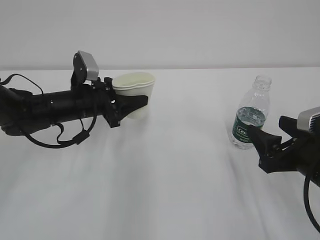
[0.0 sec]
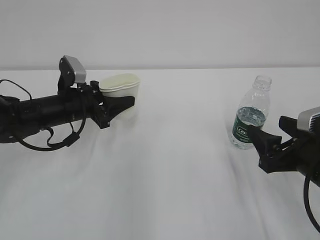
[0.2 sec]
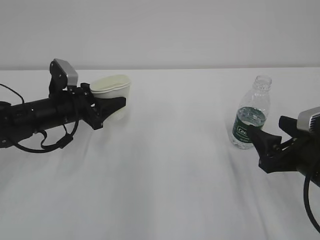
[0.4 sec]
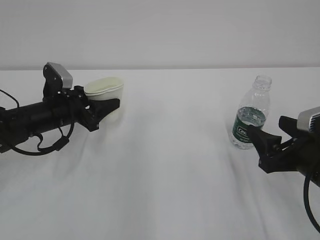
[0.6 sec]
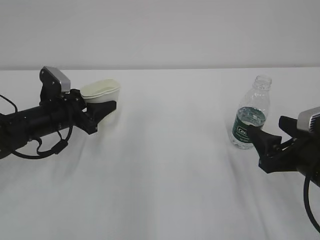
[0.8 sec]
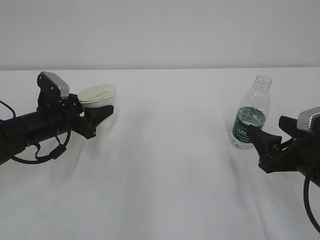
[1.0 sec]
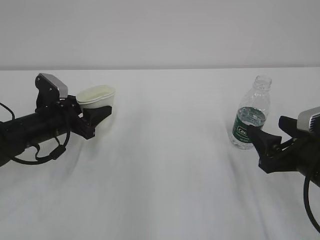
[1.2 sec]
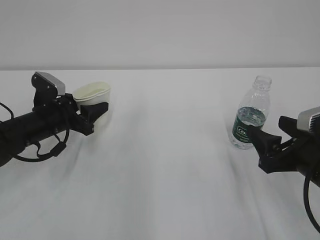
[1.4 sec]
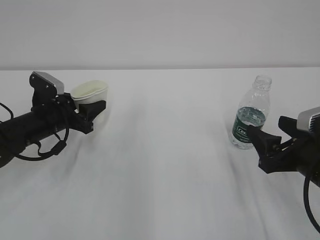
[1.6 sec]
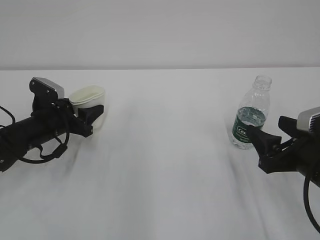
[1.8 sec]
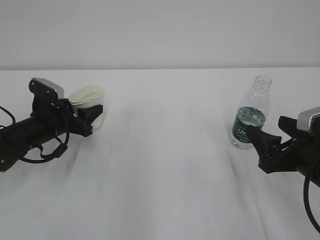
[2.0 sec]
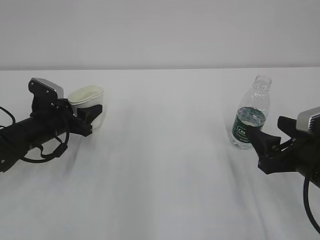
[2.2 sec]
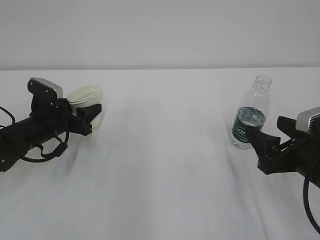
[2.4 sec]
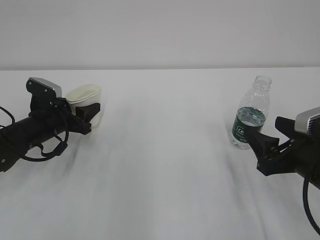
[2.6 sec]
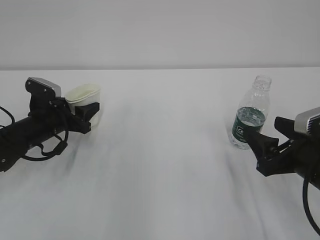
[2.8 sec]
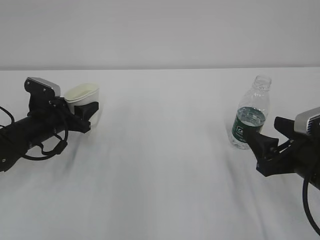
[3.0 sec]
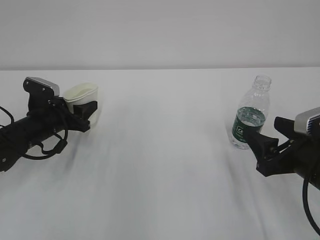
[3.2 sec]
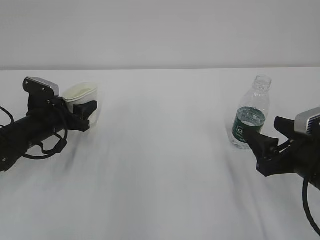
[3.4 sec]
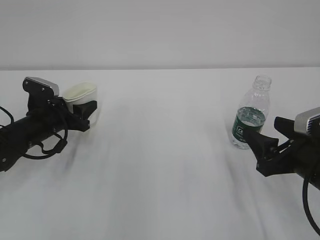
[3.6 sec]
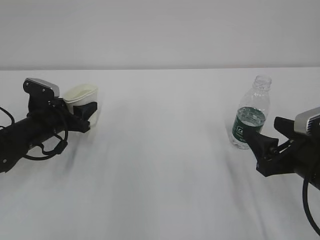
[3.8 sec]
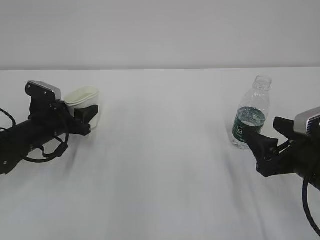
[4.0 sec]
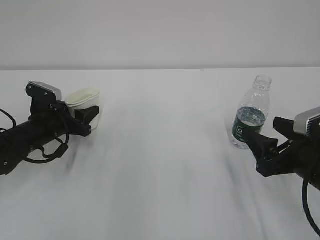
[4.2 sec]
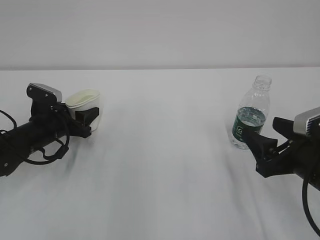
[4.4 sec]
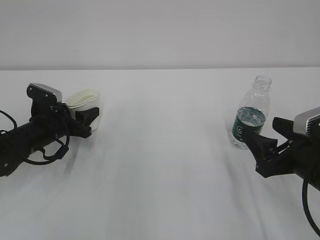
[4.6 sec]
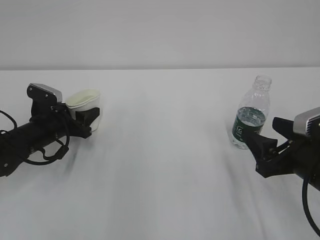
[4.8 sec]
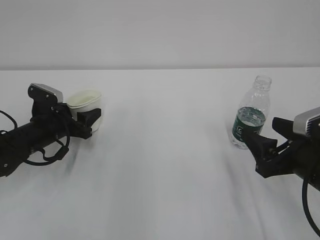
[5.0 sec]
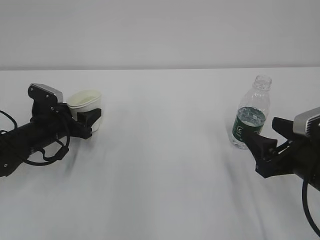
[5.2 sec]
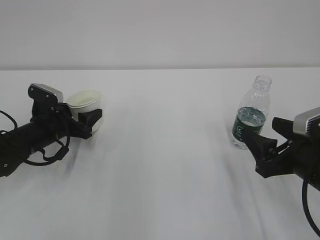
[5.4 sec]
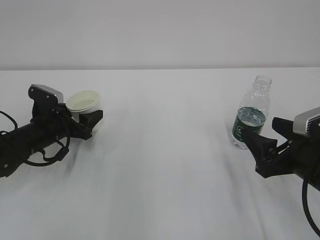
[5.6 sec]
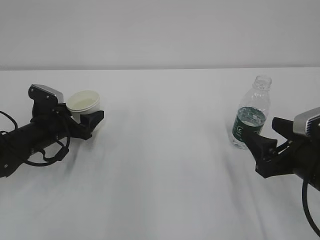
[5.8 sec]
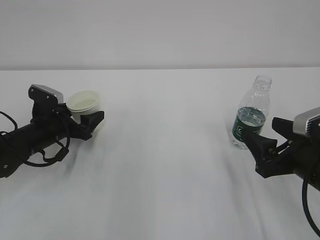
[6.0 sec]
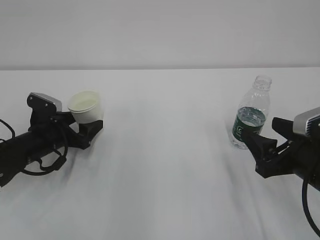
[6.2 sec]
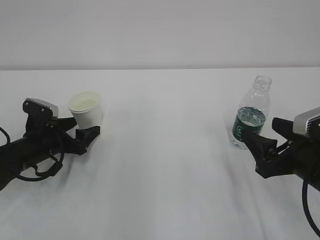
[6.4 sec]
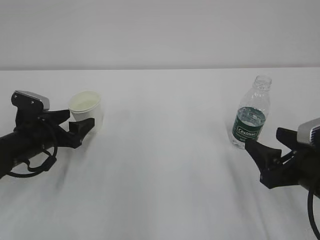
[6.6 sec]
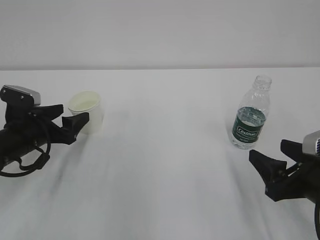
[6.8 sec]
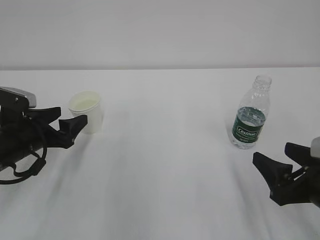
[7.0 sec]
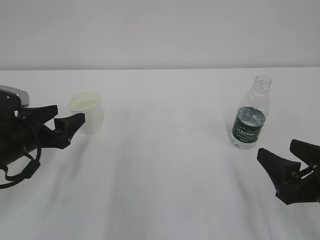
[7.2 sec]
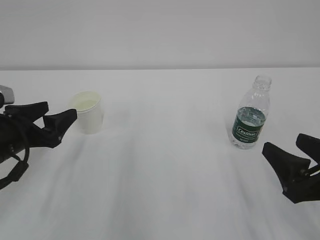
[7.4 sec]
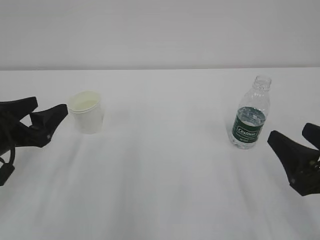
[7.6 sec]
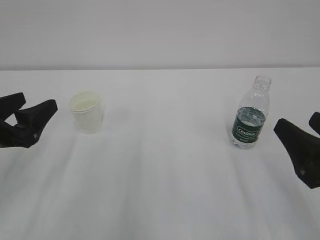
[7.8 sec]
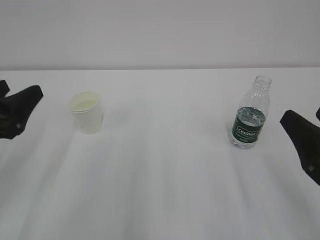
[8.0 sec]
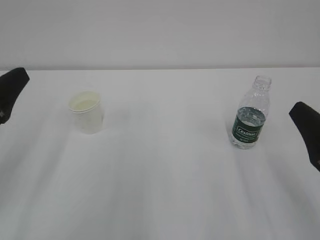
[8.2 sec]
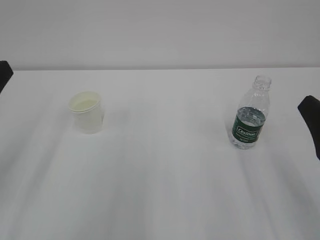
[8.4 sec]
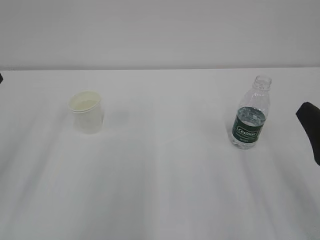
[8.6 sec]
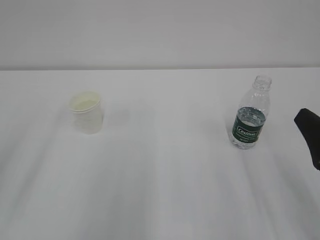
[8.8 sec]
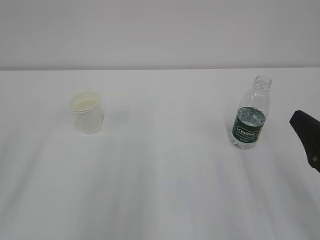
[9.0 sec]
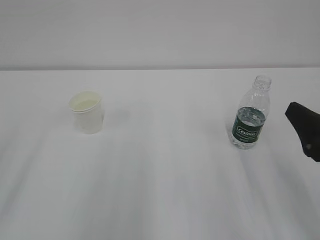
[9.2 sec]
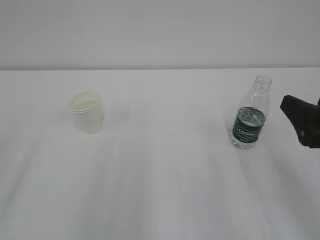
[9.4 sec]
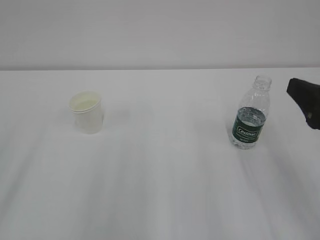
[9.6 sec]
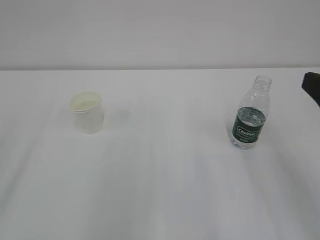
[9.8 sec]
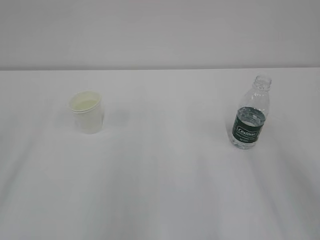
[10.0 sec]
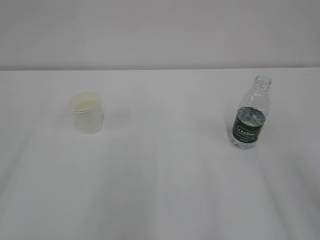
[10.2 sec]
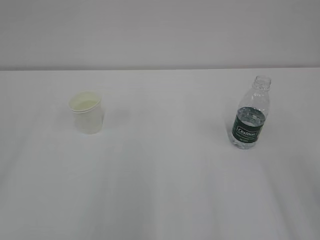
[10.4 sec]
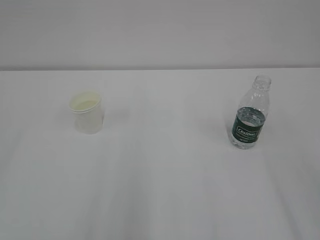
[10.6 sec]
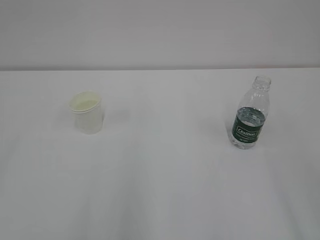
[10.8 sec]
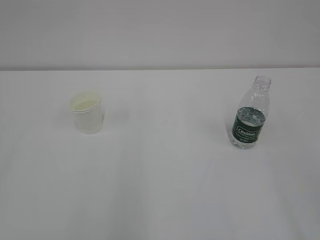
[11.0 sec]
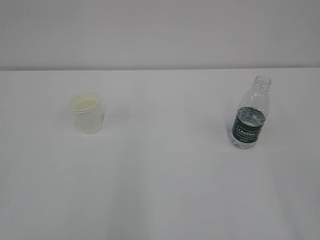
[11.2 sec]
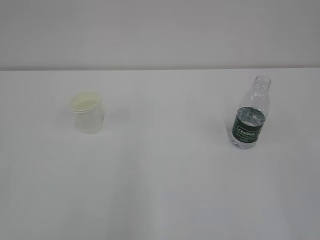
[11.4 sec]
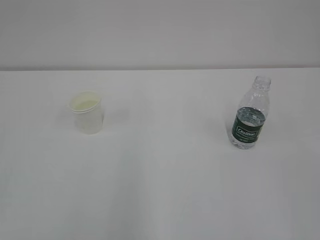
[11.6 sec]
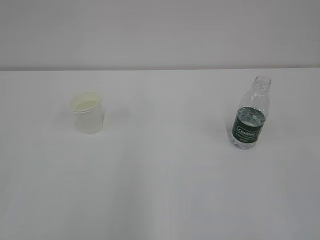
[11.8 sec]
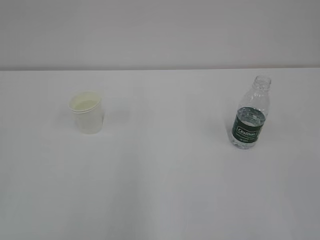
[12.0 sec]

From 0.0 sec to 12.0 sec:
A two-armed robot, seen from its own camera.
From 0.0 sec to 1.6 sec: The left gripper travels to the left by roughly 5 cm.
From 1.6 sec to 3.0 sec: The grippers move only a little.
From 3.0 sec to 4.4 sec: Both grippers stay put.
From 4.4 sec to 6.0 sec: The left gripper opens up.
From 6.0 sec to 7.6 sec: The left gripper moves backward and upward, about 15 cm. Meanwhile the right gripper goes about 5 cm backward.
From 7.6 sec to 9.0 sec: The left gripper moves backward and upward, approximately 15 cm.
From 9.0 sec to 10.4 sec: The right gripper travels upward and backward by roughly 15 cm.
